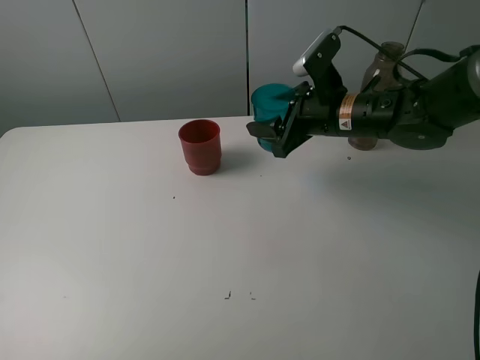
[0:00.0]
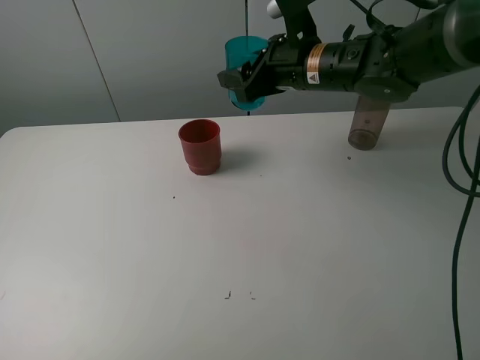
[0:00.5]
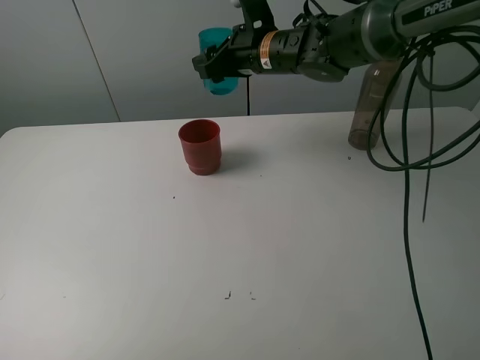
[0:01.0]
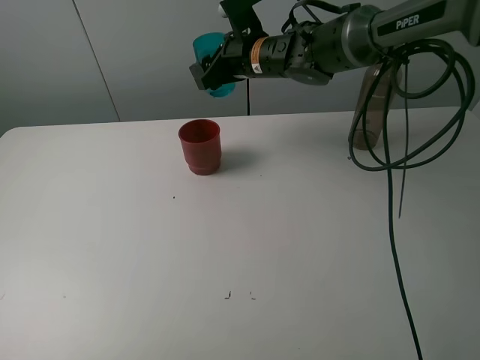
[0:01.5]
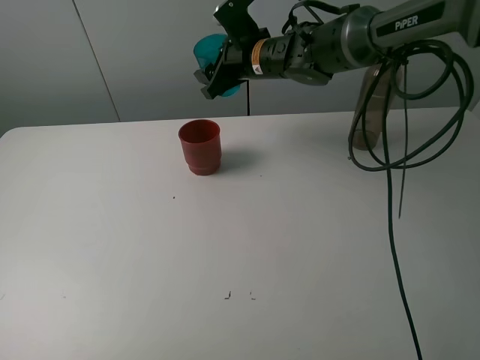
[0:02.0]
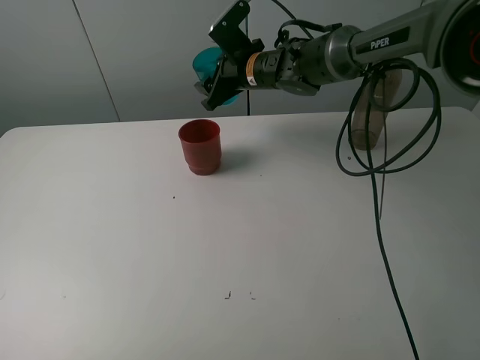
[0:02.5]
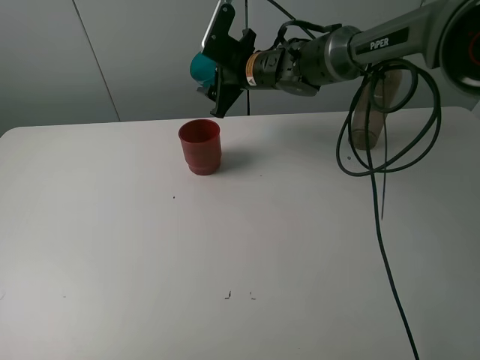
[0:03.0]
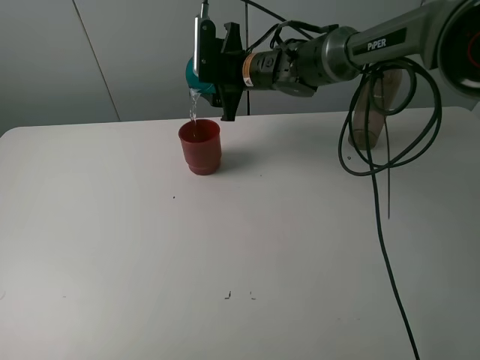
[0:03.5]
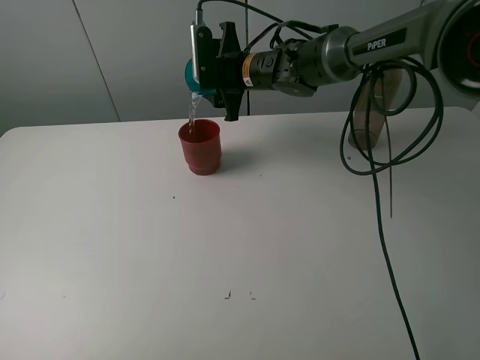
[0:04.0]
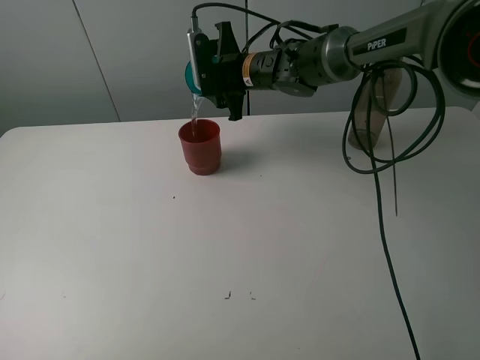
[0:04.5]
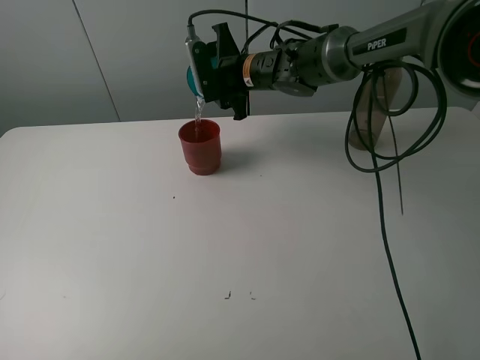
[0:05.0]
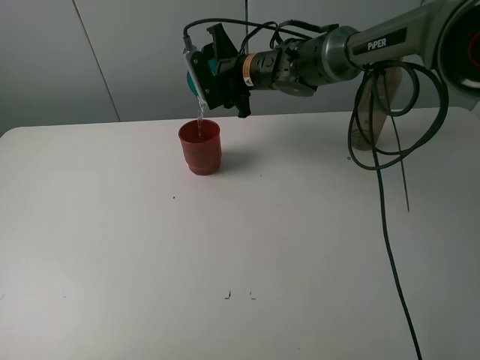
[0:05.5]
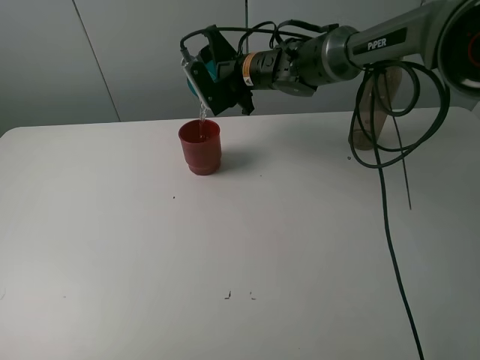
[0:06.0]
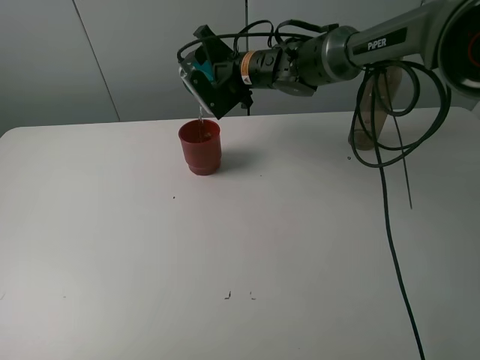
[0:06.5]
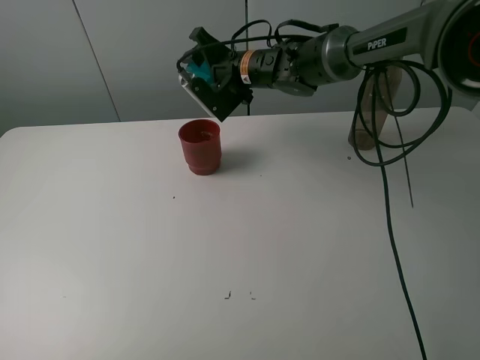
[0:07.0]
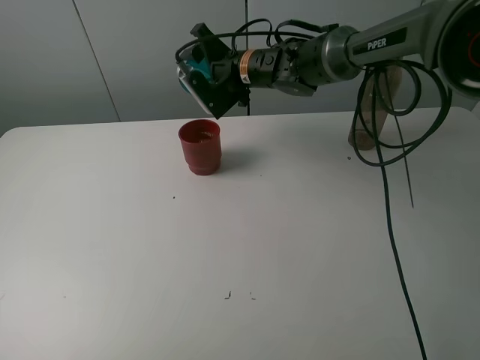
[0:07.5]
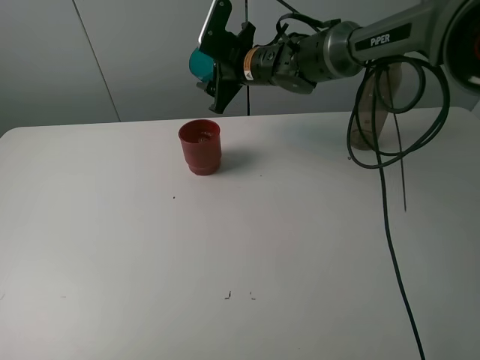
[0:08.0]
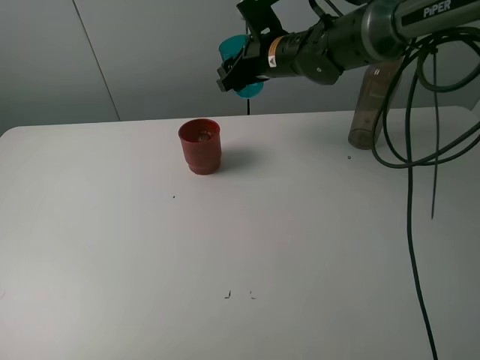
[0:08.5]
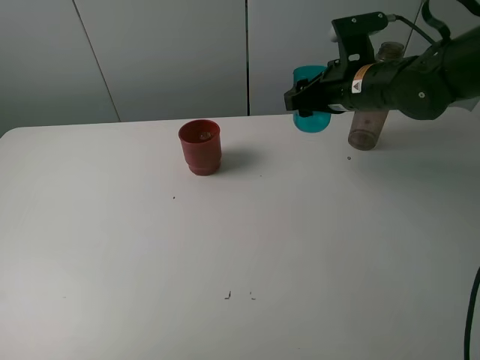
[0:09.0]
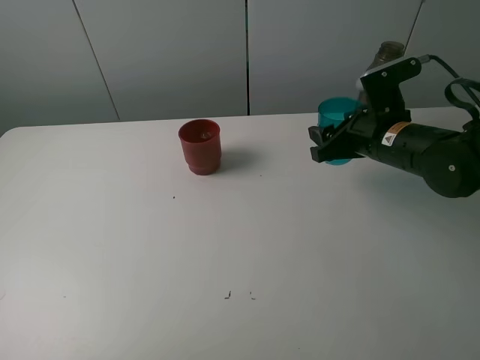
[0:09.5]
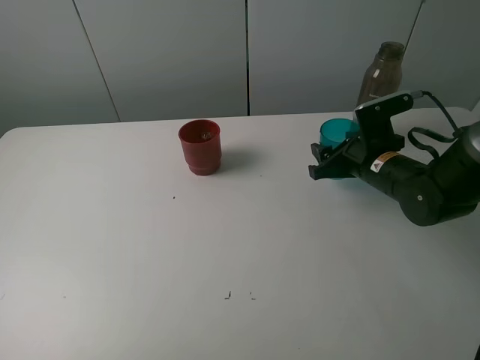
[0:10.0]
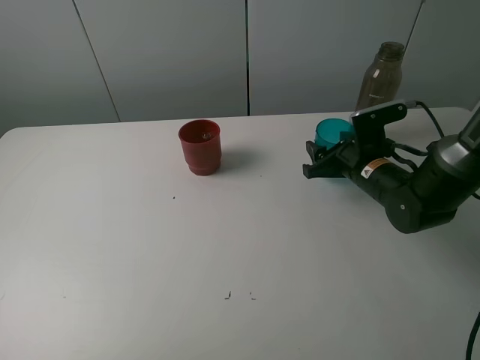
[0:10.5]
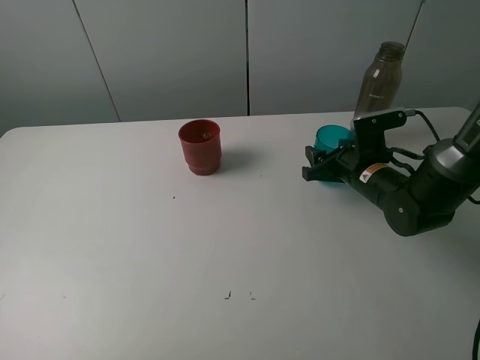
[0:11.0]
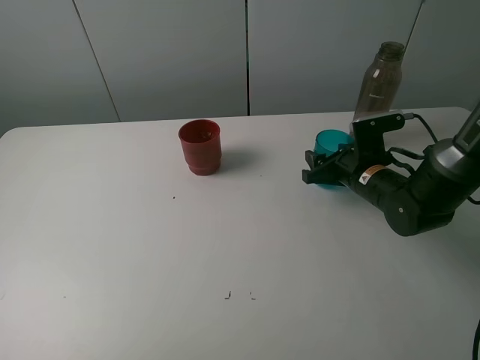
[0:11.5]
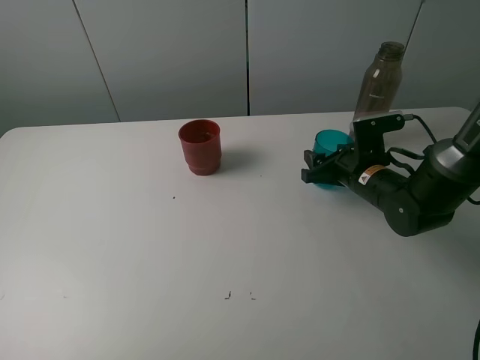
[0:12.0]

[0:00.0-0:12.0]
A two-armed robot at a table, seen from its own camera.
Task of the whole recording: pick up the bottle and pour water into the cup, then pick up the cup containing water and pour it into another cup.
Step, 0:00.0 to 0:07.5: Pour water from blue cup to red cup with the right gripper.
0:00.0 to 0:02.0: The right gripper moves forward and to the left, about 15 cm.
0:08.0 to 0:10.0: The right gripper travels to the right, backward and downward by some 25 cm.
0:10.0 to 0:12.0: The grippers move only a little.

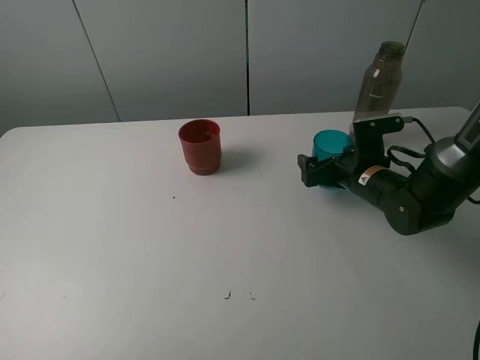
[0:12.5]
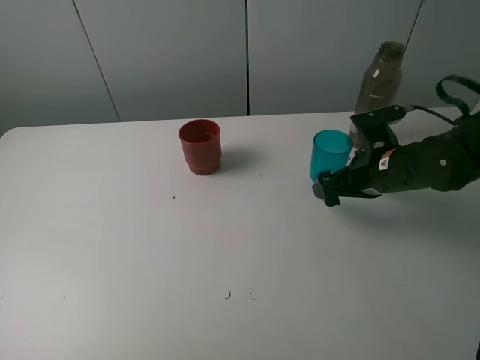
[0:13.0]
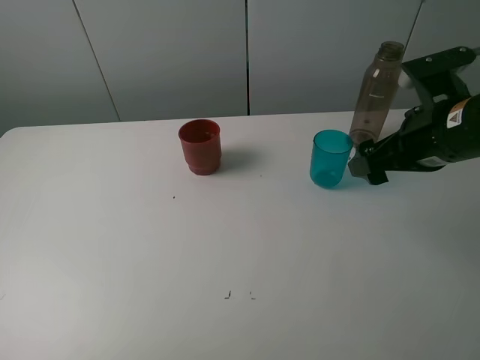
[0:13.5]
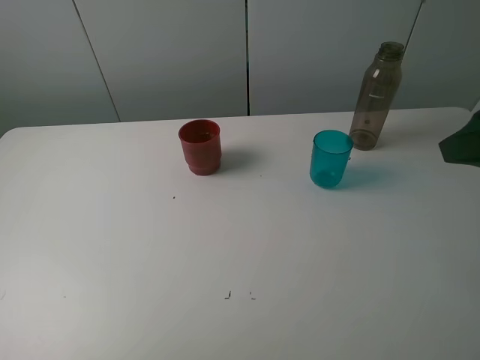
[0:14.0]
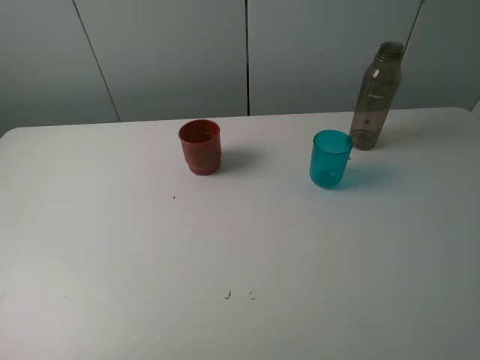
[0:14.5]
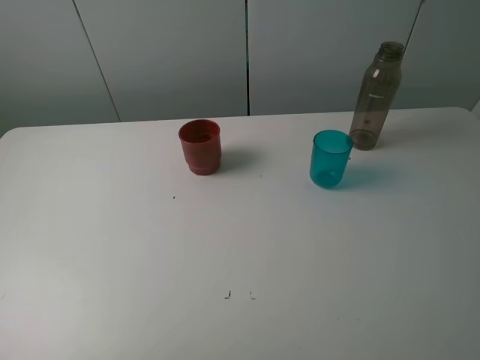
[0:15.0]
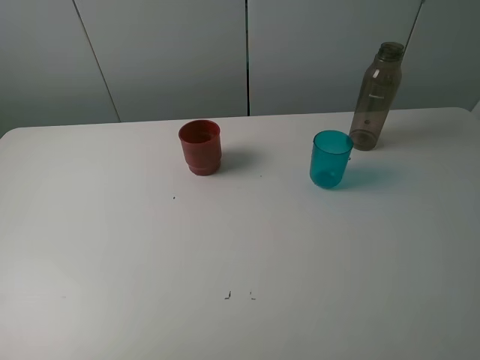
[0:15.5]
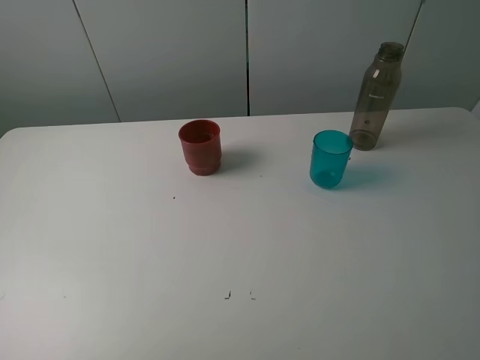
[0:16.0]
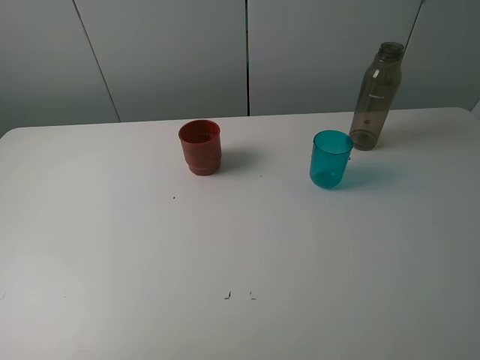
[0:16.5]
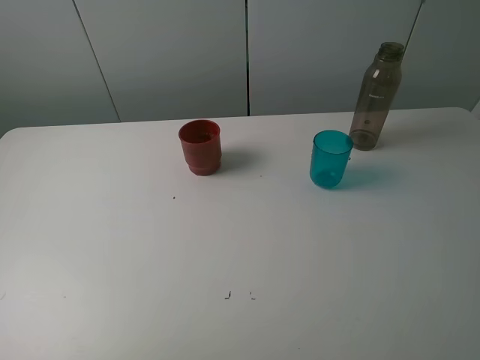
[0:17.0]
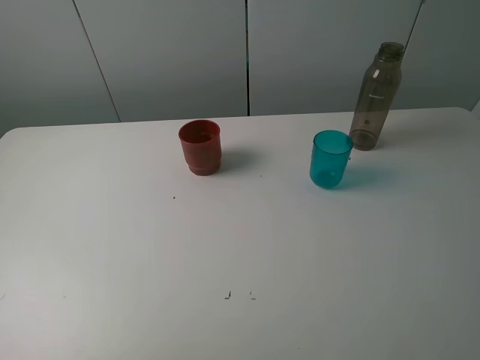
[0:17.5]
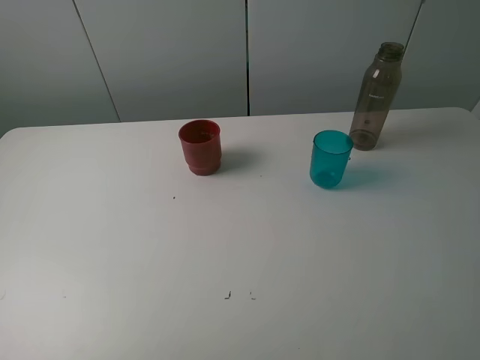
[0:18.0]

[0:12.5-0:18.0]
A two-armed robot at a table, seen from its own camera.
Task of the whole recording: pick up the bottle and pour water into the cup, then pick up the cup containing water and pour it into another cup.
0:12.5 to 0:14.5: The right gripper moves backward and upward, some 40 cm.

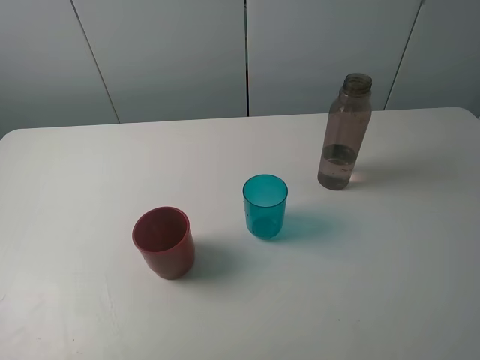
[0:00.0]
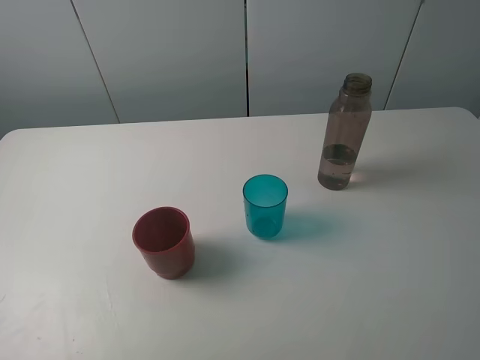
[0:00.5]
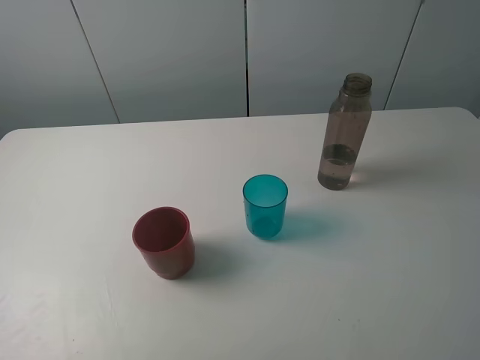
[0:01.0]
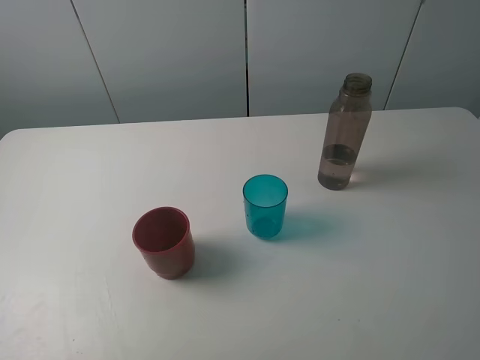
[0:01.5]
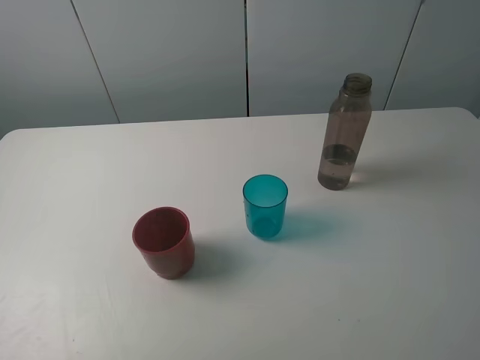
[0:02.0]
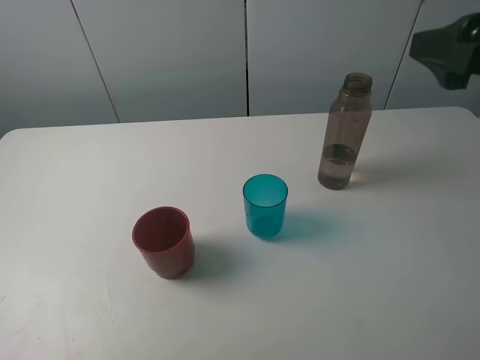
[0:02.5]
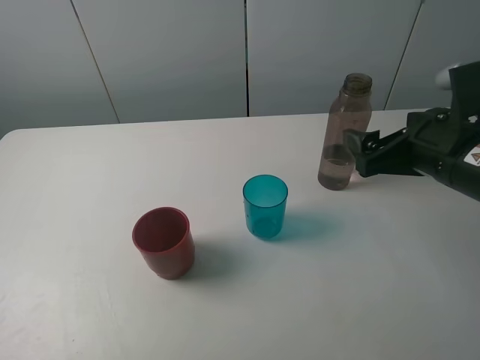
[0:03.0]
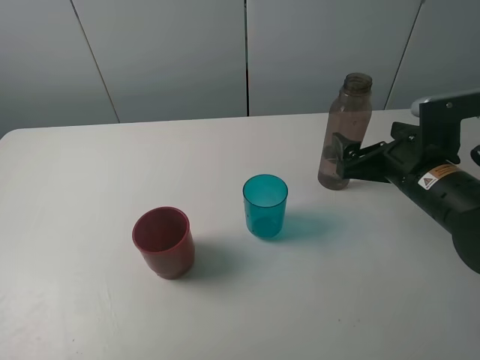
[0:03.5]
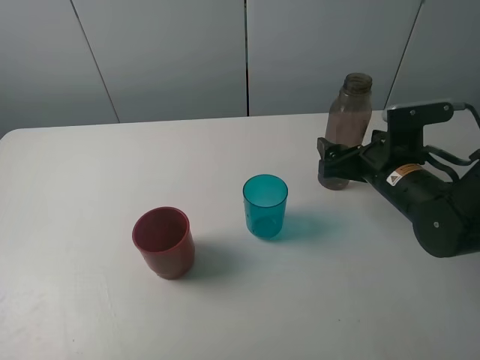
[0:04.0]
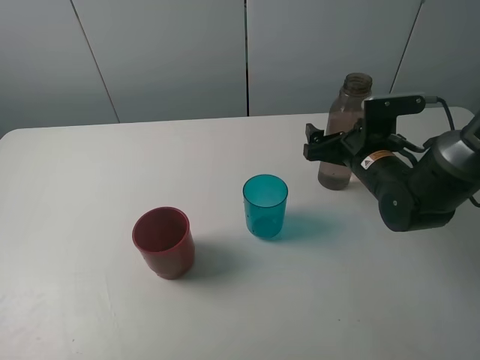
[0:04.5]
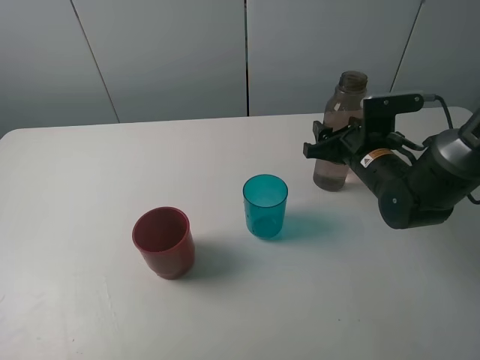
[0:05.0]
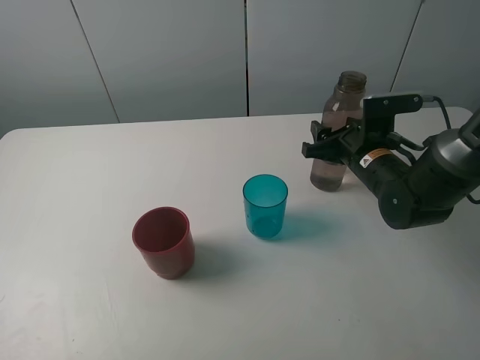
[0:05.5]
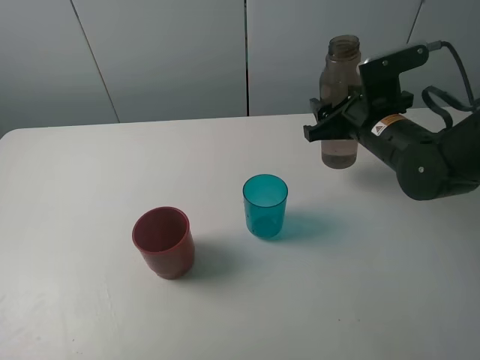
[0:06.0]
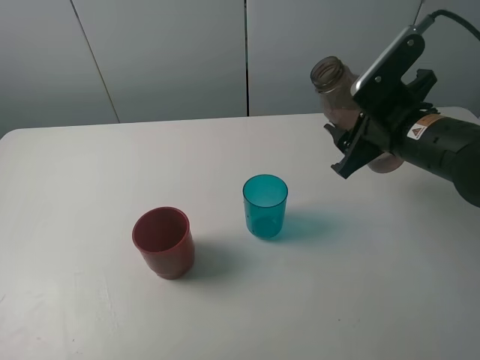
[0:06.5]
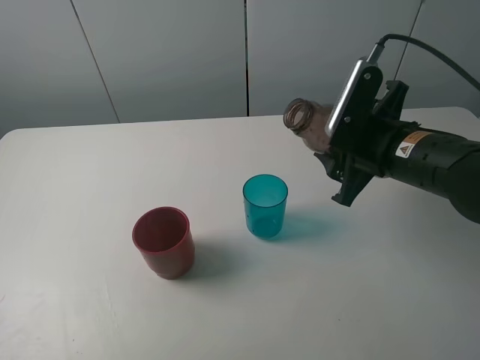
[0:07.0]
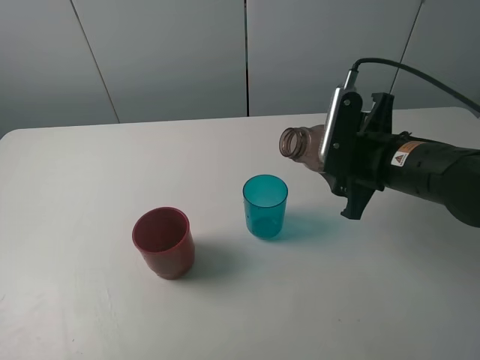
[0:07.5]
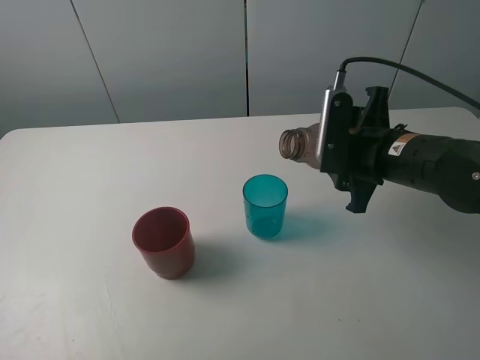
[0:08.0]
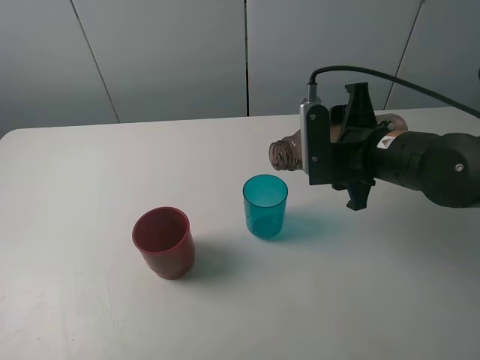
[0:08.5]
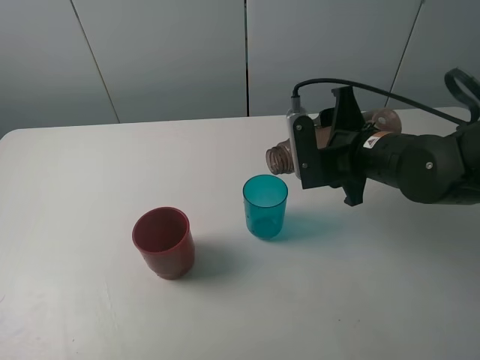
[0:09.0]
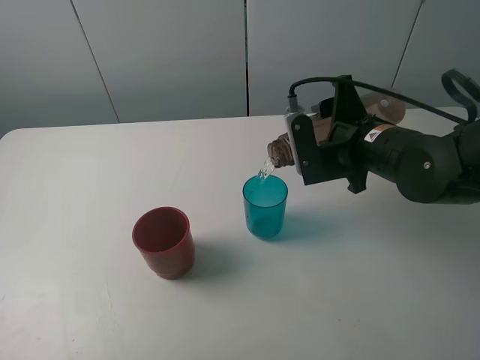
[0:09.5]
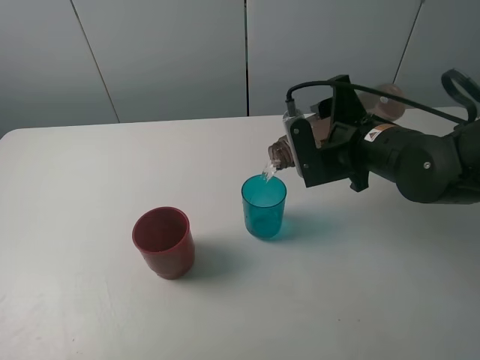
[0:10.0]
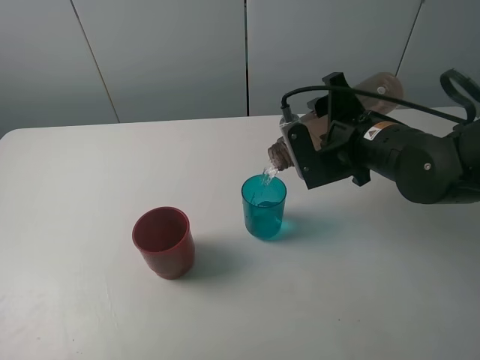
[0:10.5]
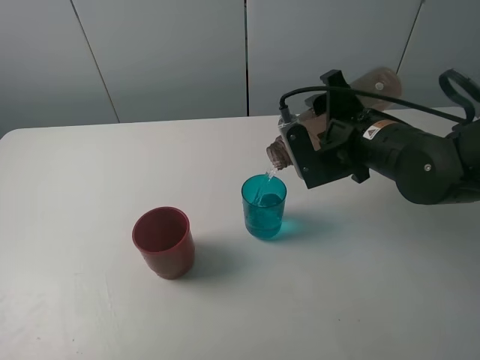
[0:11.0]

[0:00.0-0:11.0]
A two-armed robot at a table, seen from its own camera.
Task of the whole recording: pick up the bottle and pour water into the cup, then pick up the cup containing water and pour it into another cup.
Step, 0:00.0 to 0:05.0: Grasp the brown bottle with the right gripper.
0:02.0 to 0:03.5: The right gripper is displaced downward and forward by some 25 cm.
0:03.5 to 0:05.5: The right gripper travels forward by some 10 cm, and closes.
0:05.5 to 0:07.5: The right gripper shifts about 10 cm backward and upward.
0:09.0 to 0:11.0: The grippers stay close to where they were, moving slightly.
